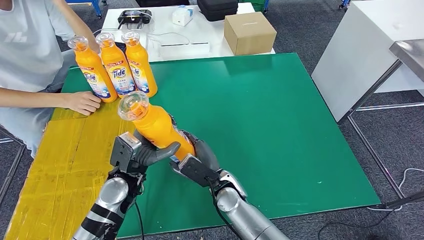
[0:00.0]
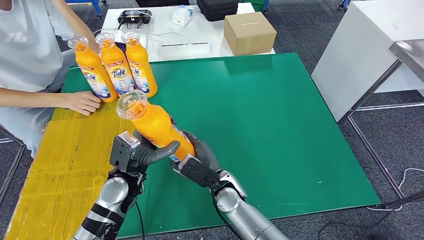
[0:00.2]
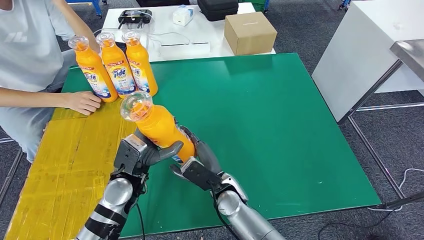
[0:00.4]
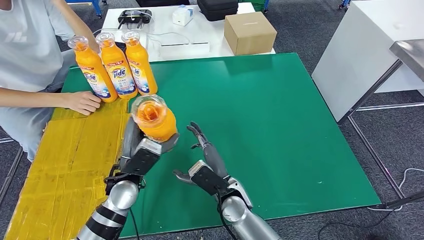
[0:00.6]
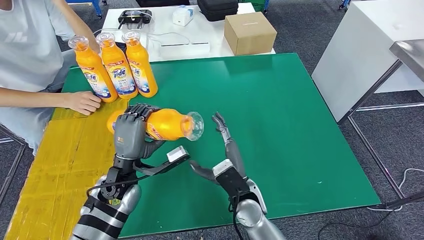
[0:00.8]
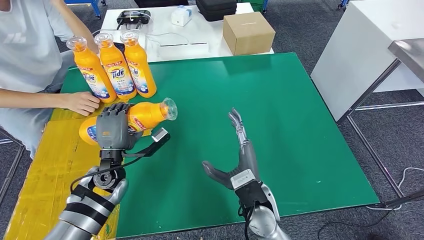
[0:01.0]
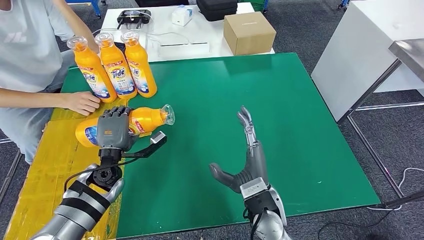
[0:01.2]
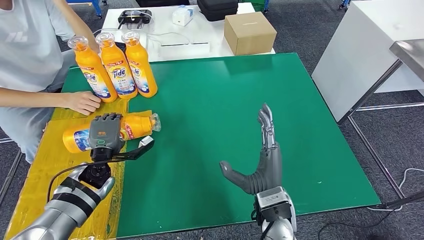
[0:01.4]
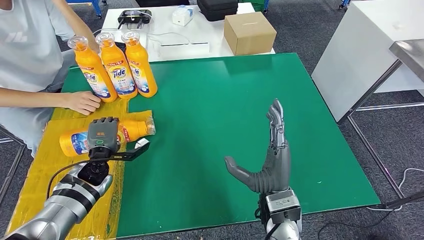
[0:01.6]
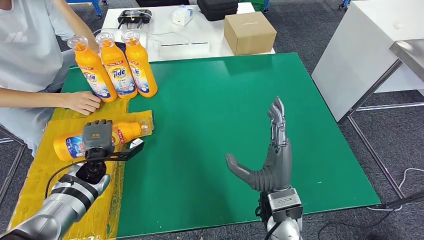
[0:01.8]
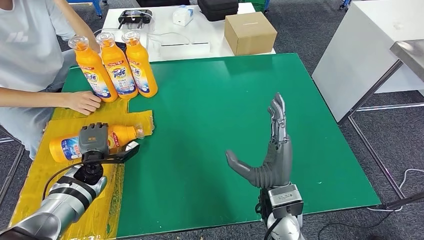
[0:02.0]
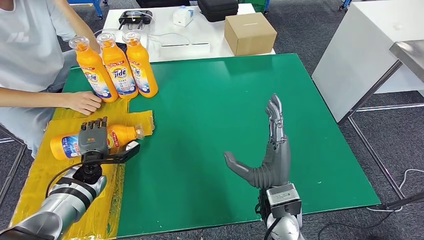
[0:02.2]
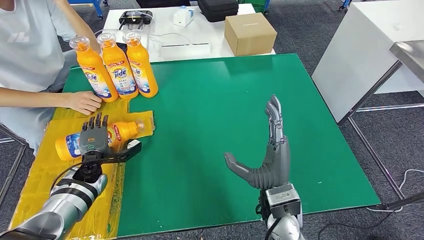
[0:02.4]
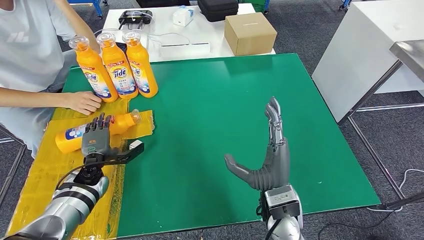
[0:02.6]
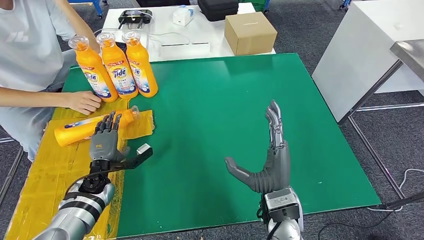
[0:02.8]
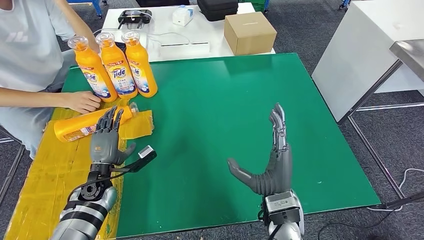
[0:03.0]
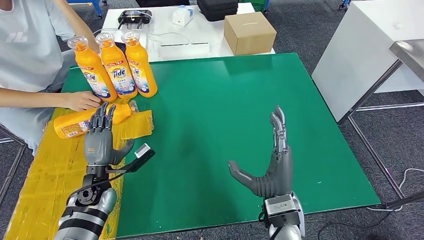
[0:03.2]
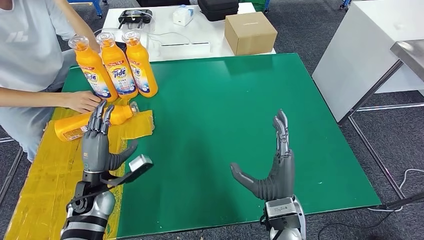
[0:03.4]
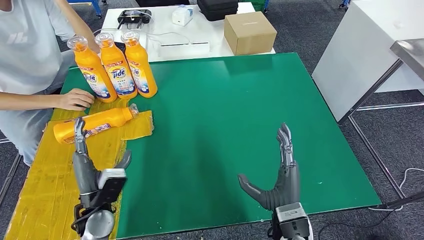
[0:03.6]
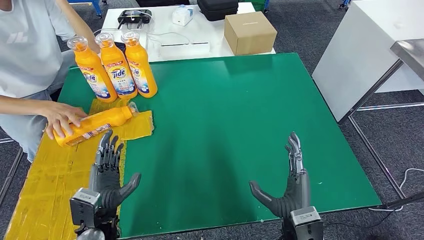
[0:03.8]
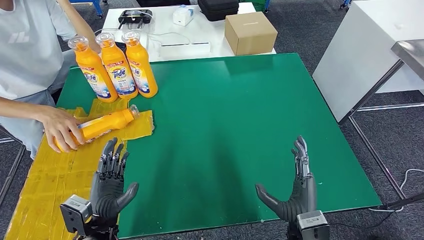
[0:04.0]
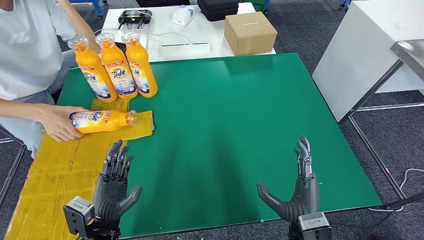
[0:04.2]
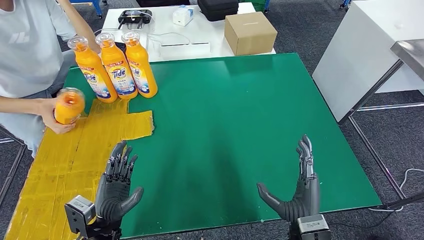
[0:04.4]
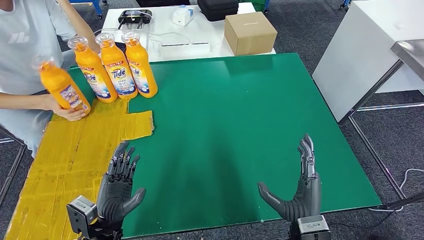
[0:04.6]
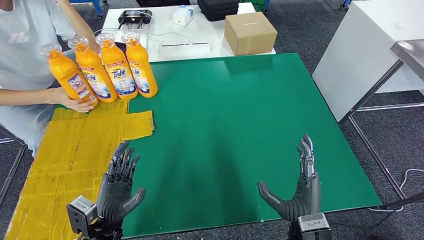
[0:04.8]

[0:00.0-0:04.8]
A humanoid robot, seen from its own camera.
Step, 0:00.0 to 0:04.8: Flip the fast-moving consumer goods bottle to the front side.
0:00.0 to 0:01.6: The right hand heads to the right, upward and backward, covering approximately 15 cm; the left hand travels to the left, forward and downward by some 15 cm.
0:01.6 to 0:03.2: The left hand heads backward, covering some 5 cm.
0:03.2 to 0:04.8: The left hand goes about 15 cm backward and to the right. Meanwhile the right hand moves to the right, some 5 cm.
